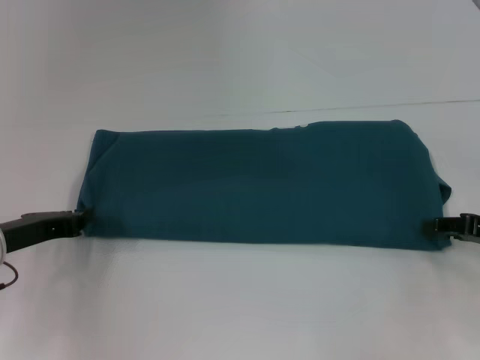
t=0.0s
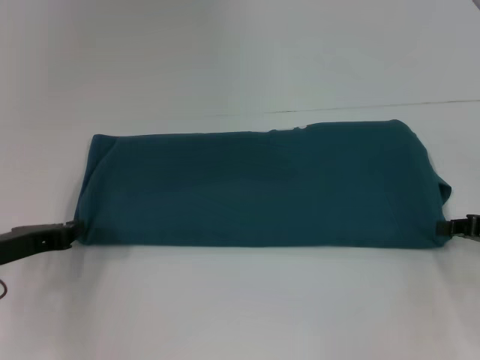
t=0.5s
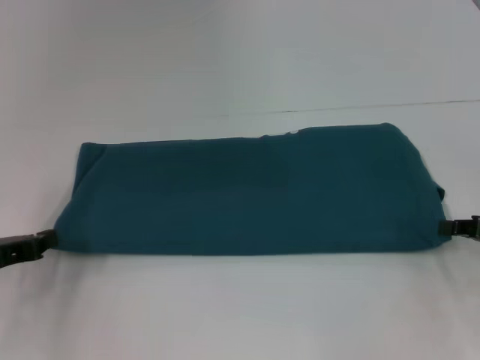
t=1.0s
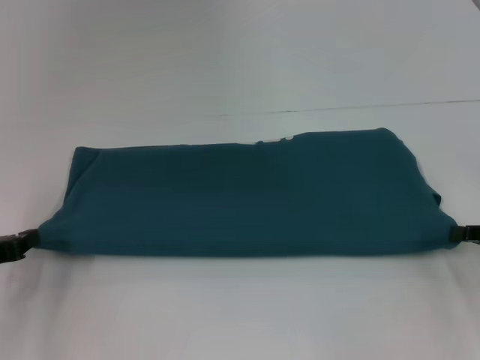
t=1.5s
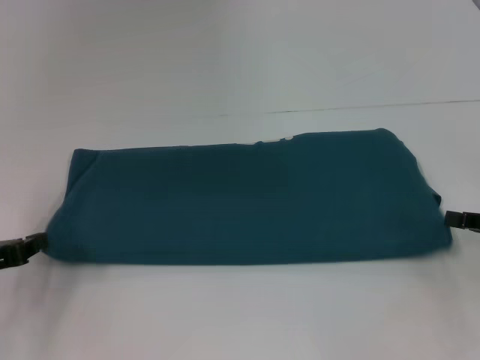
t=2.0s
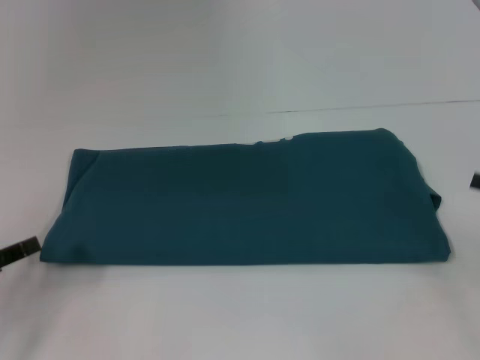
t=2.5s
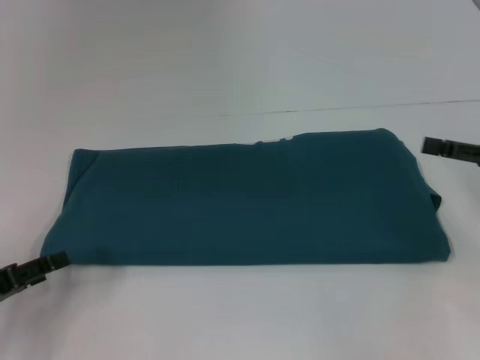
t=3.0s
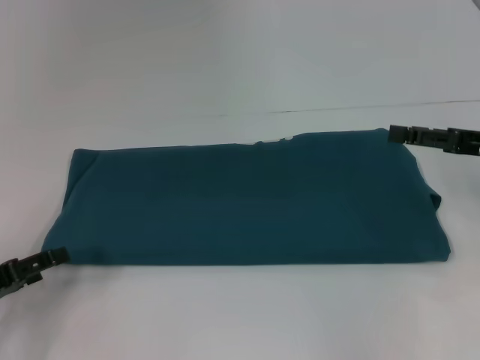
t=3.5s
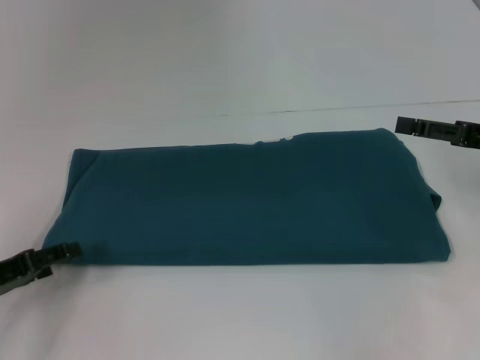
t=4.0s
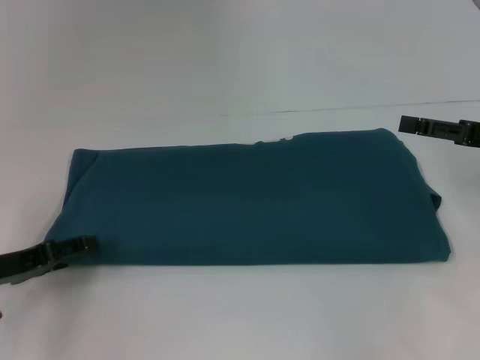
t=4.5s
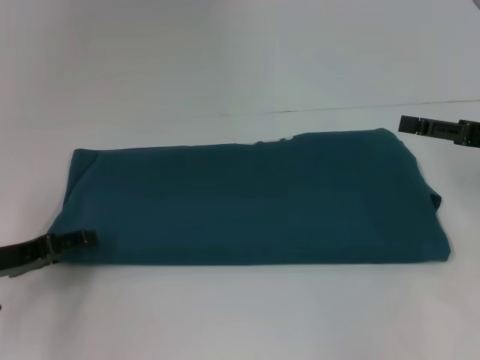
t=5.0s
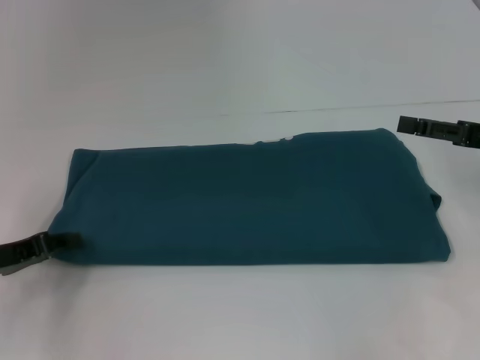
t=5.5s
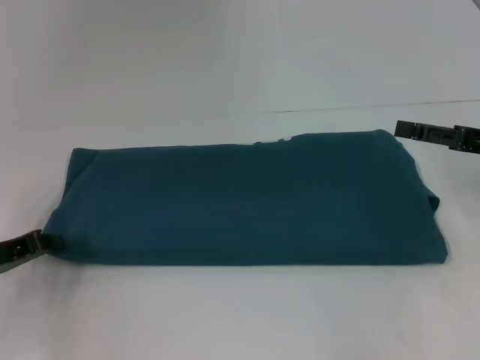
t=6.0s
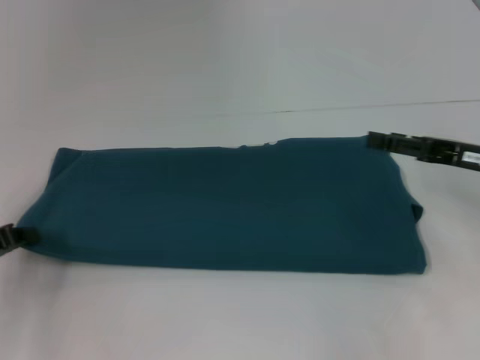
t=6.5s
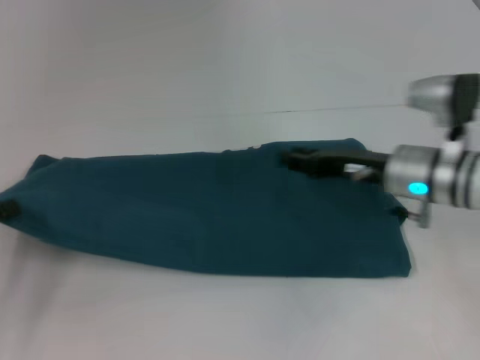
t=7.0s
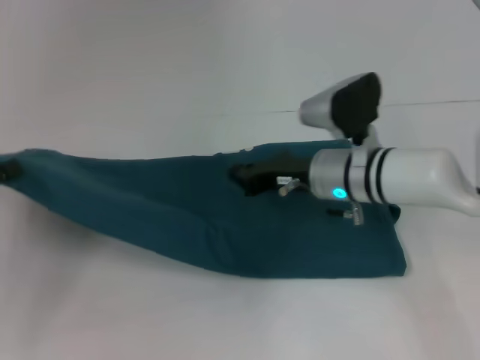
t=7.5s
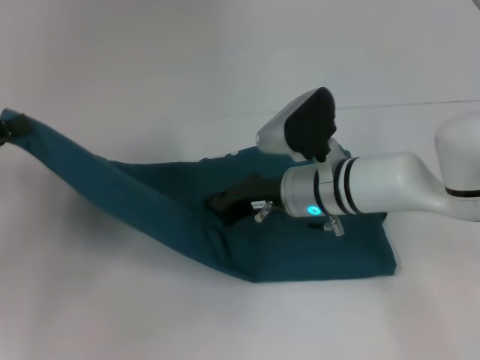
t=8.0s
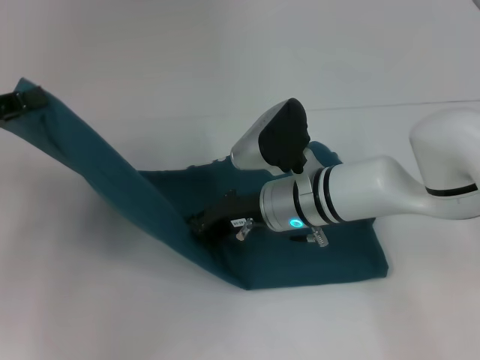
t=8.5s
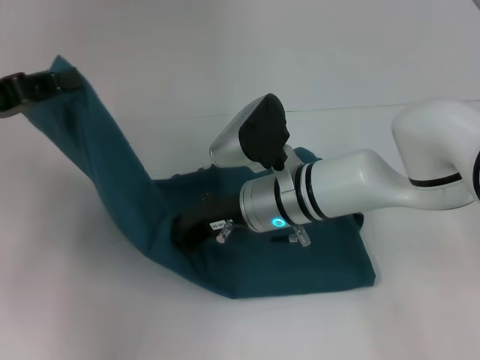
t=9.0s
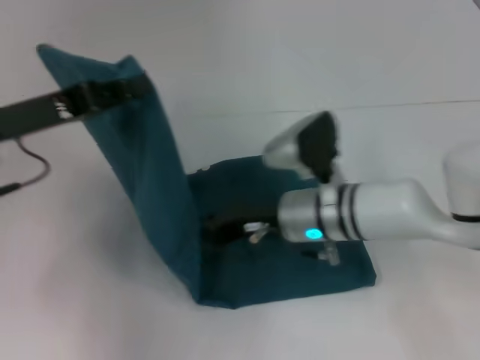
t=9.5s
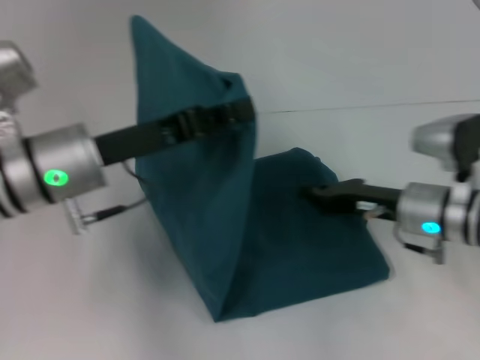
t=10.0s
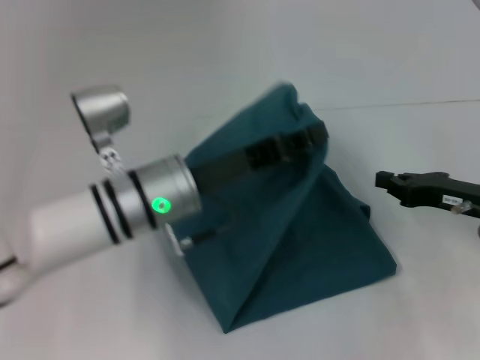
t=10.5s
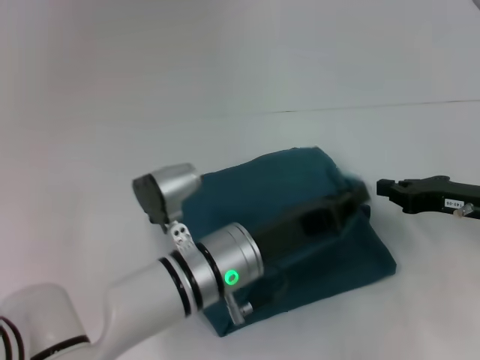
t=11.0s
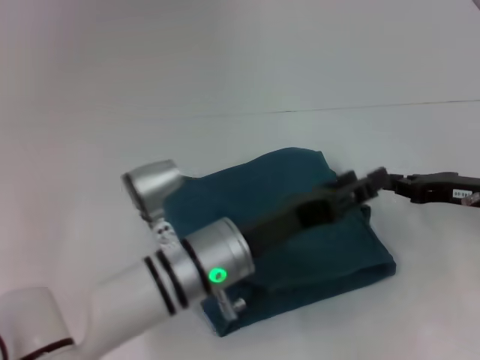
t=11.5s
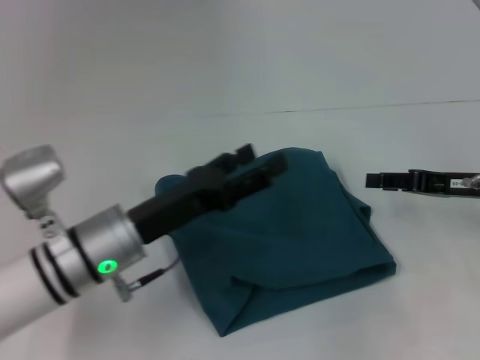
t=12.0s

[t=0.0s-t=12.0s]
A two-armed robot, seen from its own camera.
Step, t=0.0s to t=9.0s: Press the middle of the clothes with your right hand.
Step, t=9.5s to t=11.0s: Fold the clothes to the left.
t=0.0s to t=2.0s: The left gripper changes place by about 5 cm, while the right gripper closes up.
t=2.0s to t=4.0s: The left gripper opens, while the right gripper heads upward and forward, covering roughly 10 cm, and opens its fingers.
t=4.0s to t=6.0s: The left gripper closes.
t=6.0s to t=8.0s: The right gripper travels to the left by roughly 25 cm, and closes up. Meanwhile the left gripper heads upward, covering approximately 10 cm.
t=8.0s to t=10.0s: The two grippers go approximately 15 cm to the right.
t=10.0s to t=12.0s: The left gripper is displaced downward by roughly 10 cm, reaches about 15 cm to the right, then returns, and opens; the right gripper heads to the right, covering roughly 10 cm.

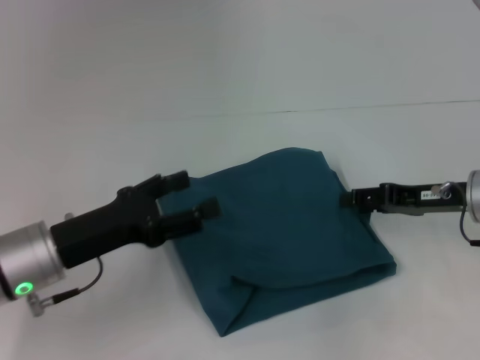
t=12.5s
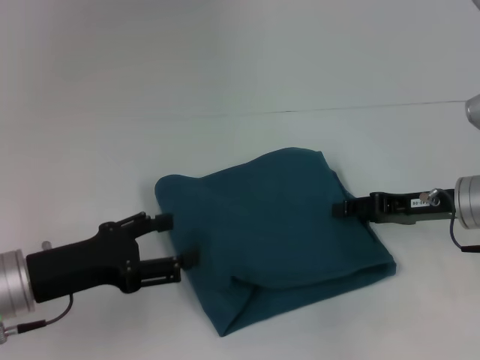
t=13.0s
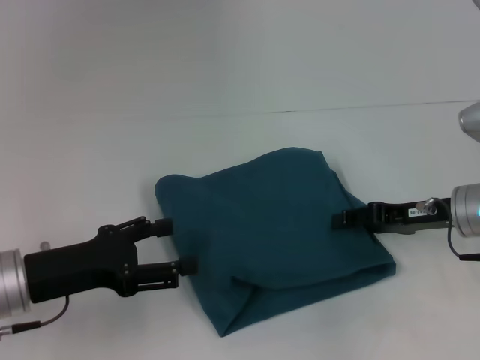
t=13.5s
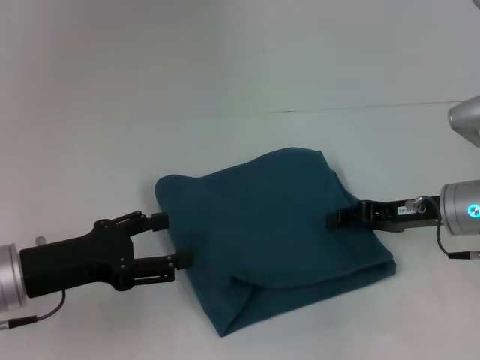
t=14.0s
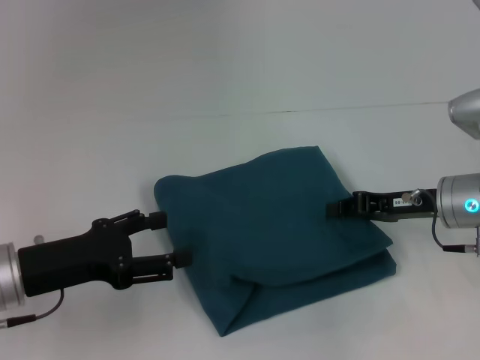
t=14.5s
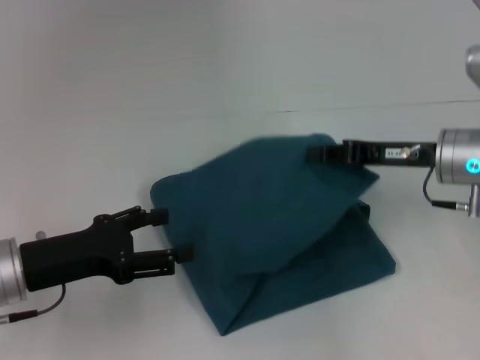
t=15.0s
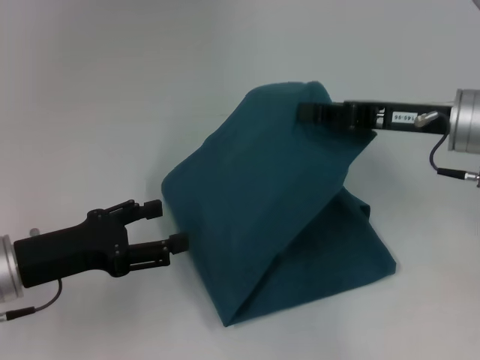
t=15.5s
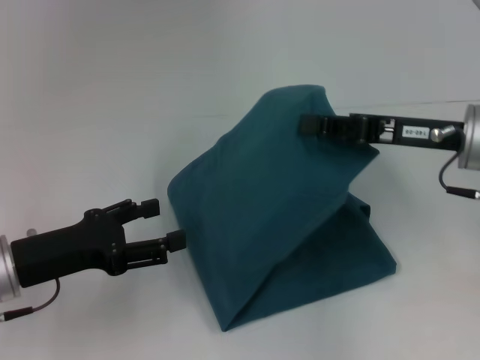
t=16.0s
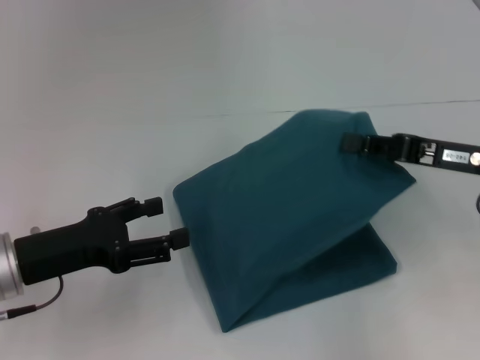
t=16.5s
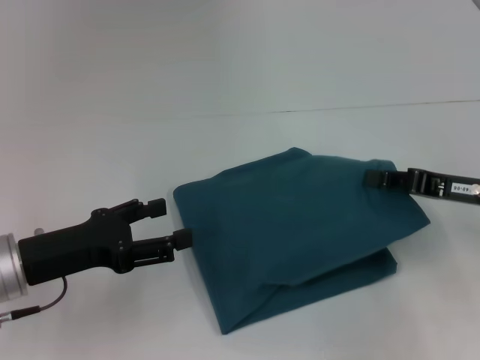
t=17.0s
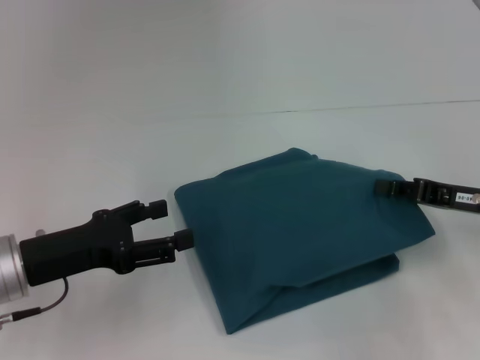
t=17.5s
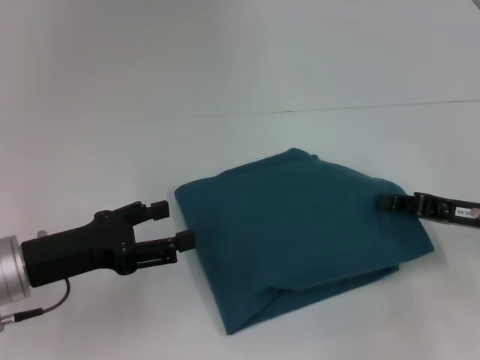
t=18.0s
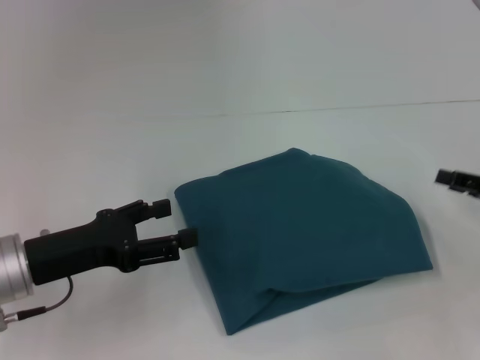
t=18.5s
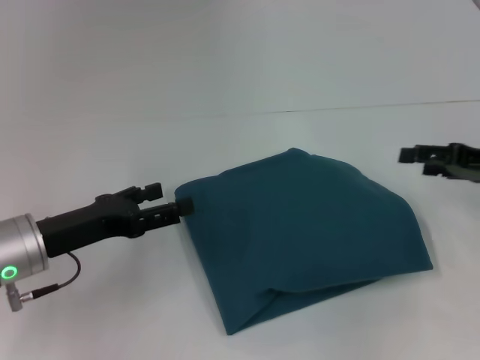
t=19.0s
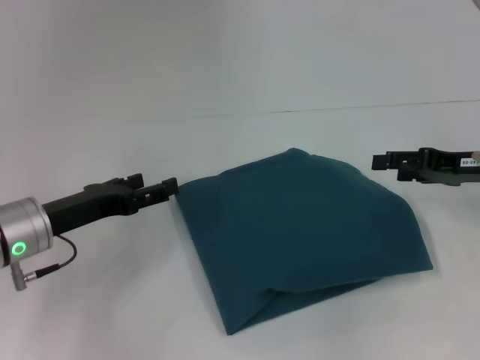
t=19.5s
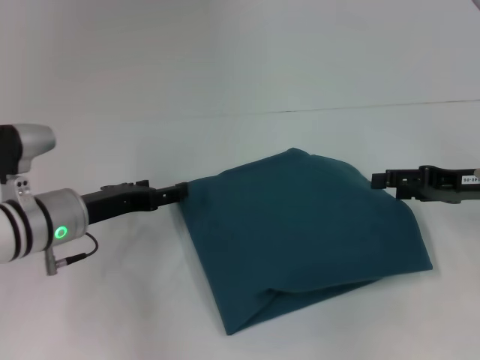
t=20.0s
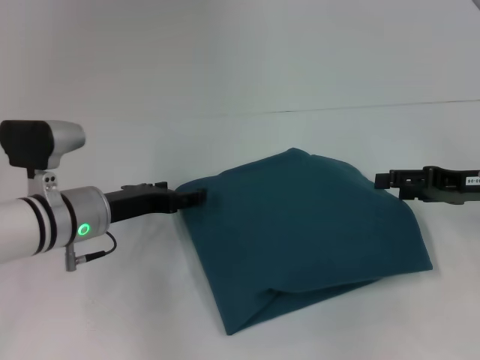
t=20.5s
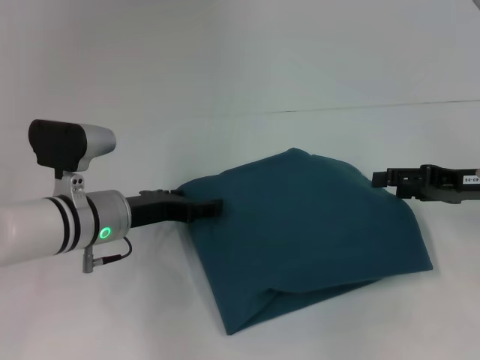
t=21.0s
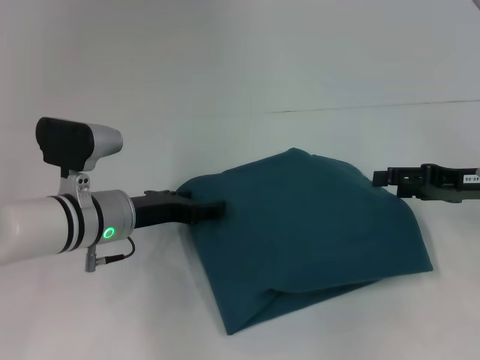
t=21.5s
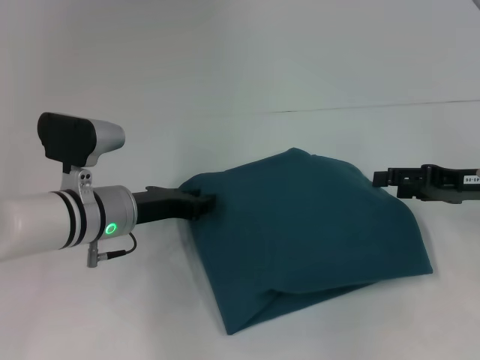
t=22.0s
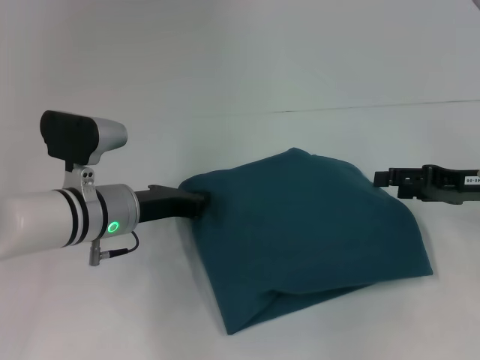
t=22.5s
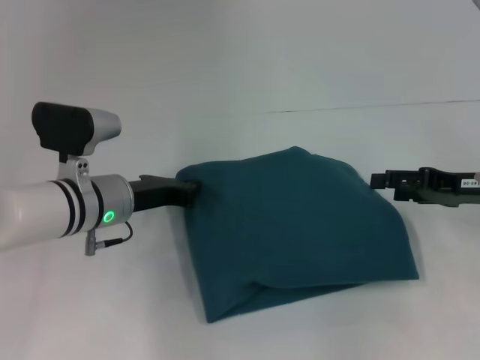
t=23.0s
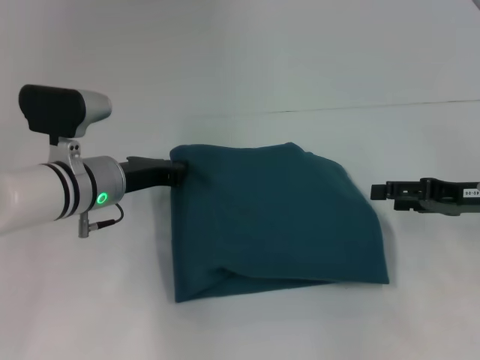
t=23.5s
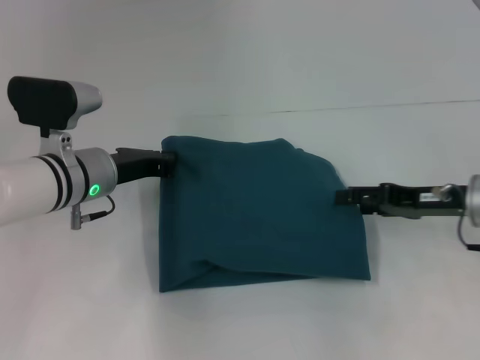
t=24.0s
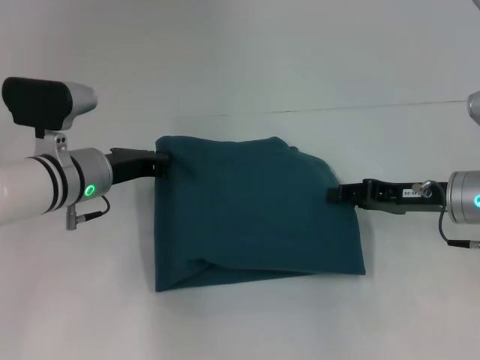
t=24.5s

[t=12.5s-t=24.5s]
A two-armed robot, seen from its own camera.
t=12.5s to t=14.5s: The right gripper closes up.
t=14.5s to t=16.5s: The right gripper shifts approximately 5 cm upward.
t=16.5s to t=18.5s: The right gripper heads to the right and downward, covering approximately 10 cm.
t=18.5s to t=20.5s: The right gripper moves about 5 cm, and opens its fingers. Meanwhile the left gripper shifts approximately 10 cm forward and to the right.
t=20.5s to t=22.5s: The left gripper closes up.
t=22.5s to t=24.5s: The right gripper heads to the left, covering about 5 cm.

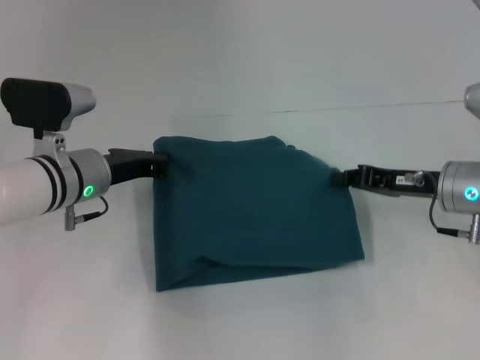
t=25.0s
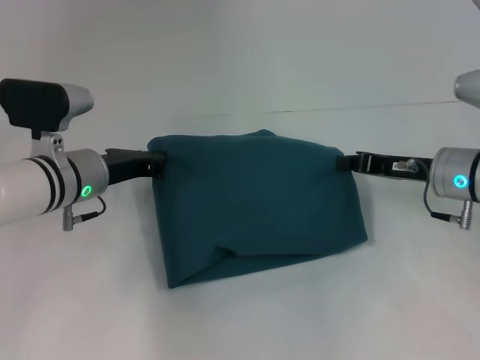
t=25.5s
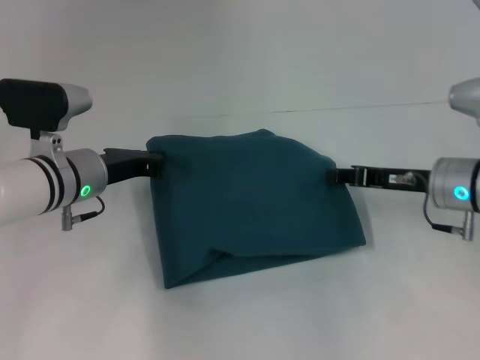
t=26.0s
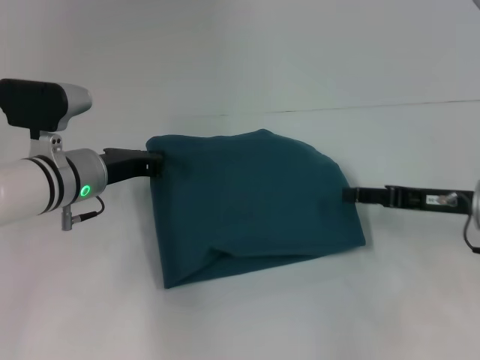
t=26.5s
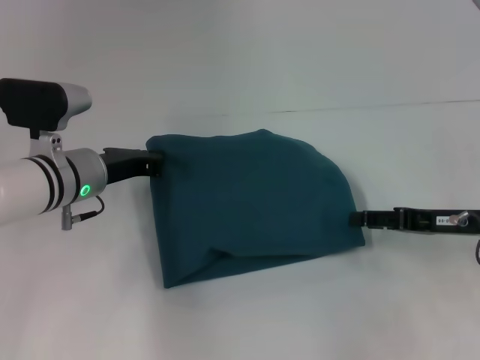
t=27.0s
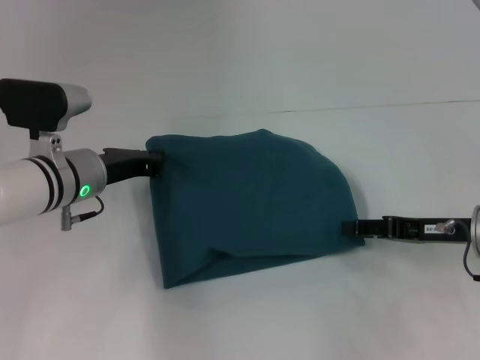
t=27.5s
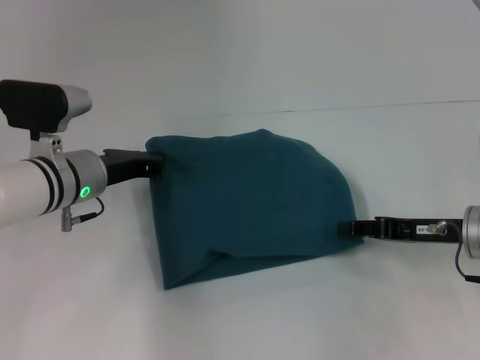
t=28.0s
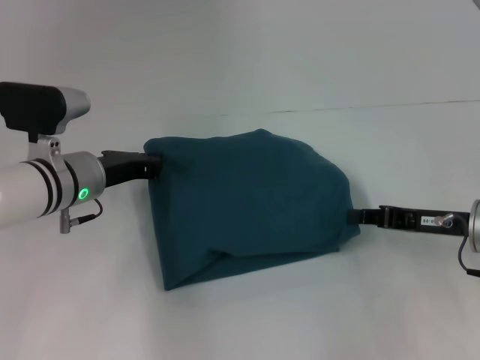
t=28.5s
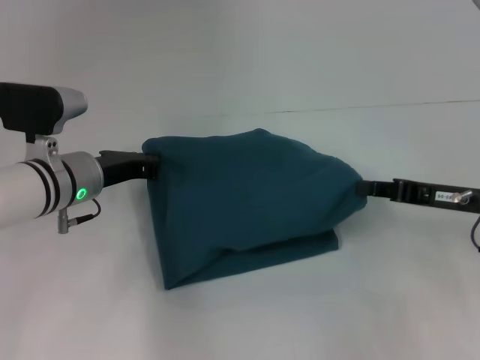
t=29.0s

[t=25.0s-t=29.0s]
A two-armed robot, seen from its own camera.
t=25.0s to t=27.0s: The right gripper ends up roughly 5 cm from where it was, and opens its fingers.
t=27.0s to t=29.0s: The right gripper closes its fingers.
